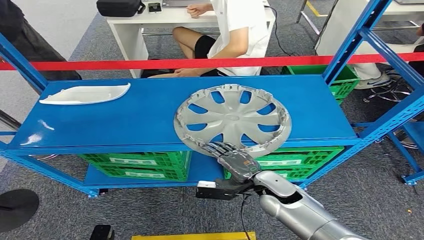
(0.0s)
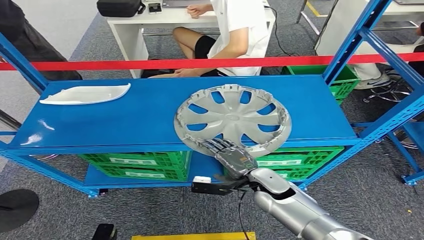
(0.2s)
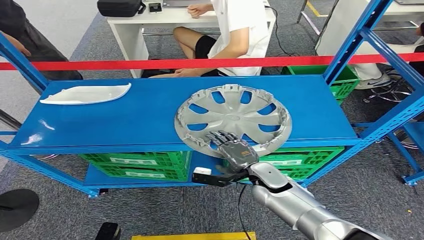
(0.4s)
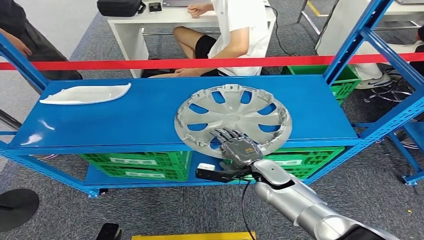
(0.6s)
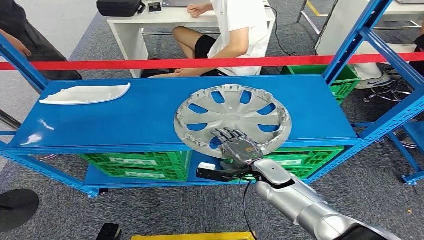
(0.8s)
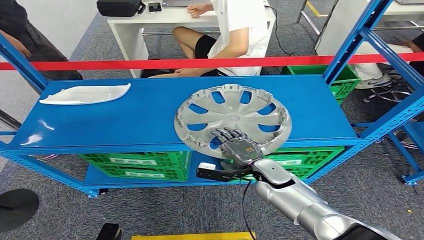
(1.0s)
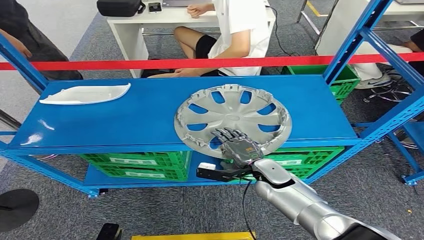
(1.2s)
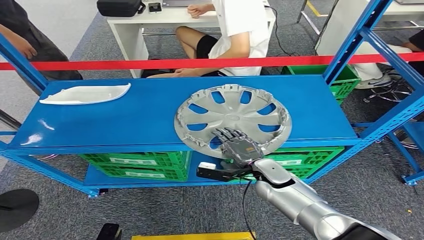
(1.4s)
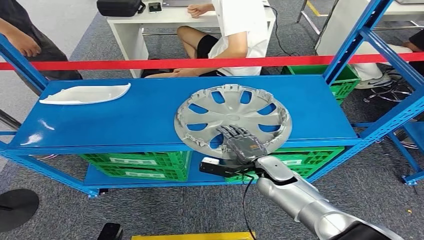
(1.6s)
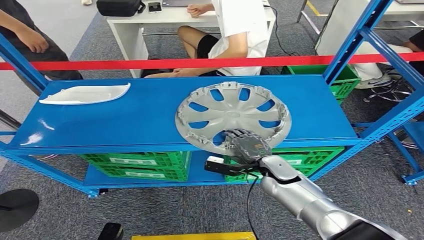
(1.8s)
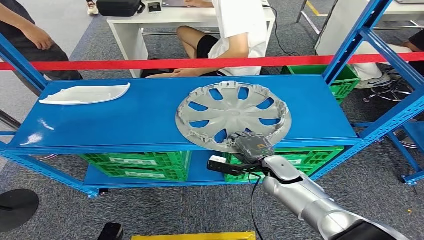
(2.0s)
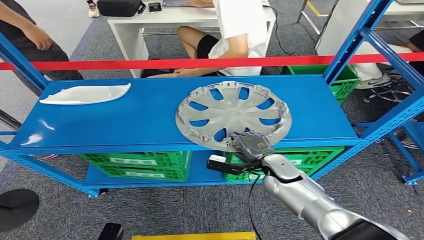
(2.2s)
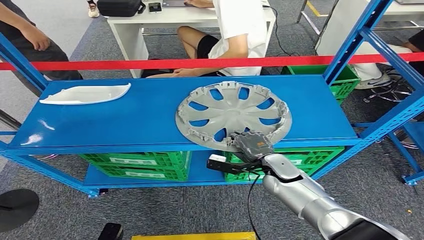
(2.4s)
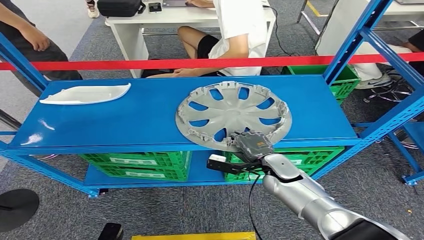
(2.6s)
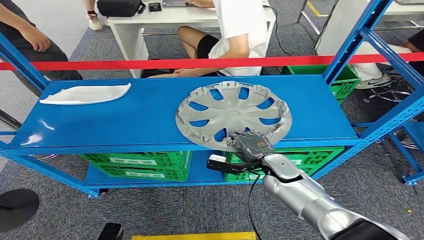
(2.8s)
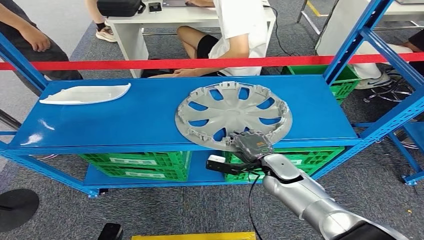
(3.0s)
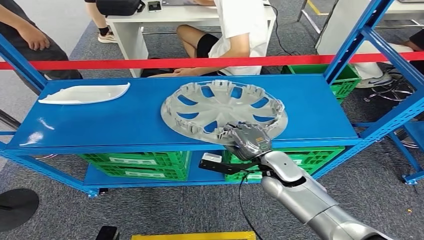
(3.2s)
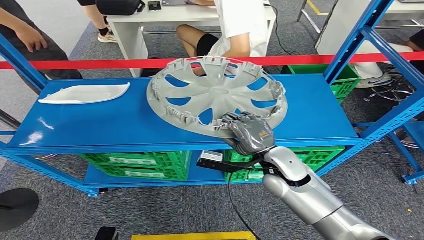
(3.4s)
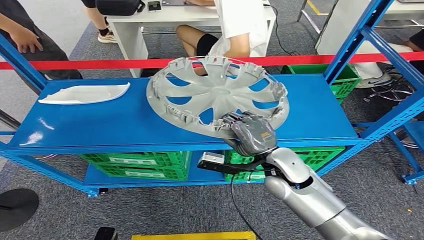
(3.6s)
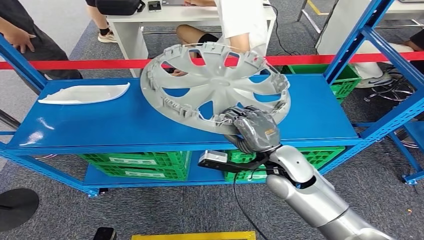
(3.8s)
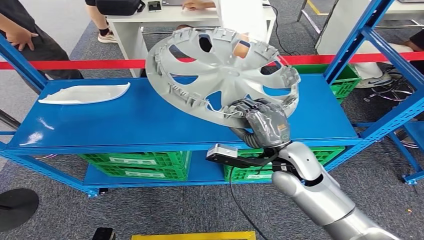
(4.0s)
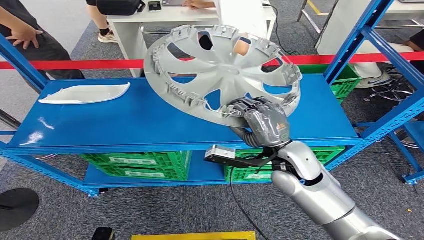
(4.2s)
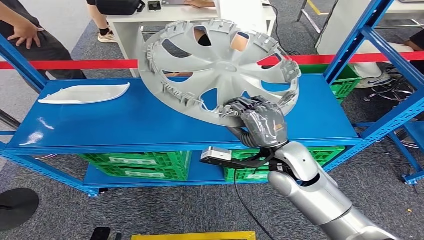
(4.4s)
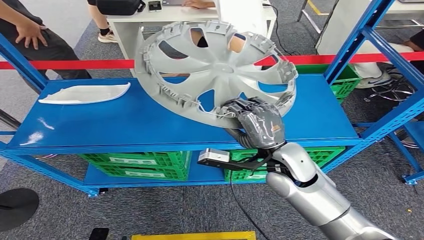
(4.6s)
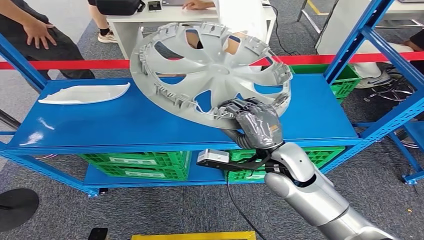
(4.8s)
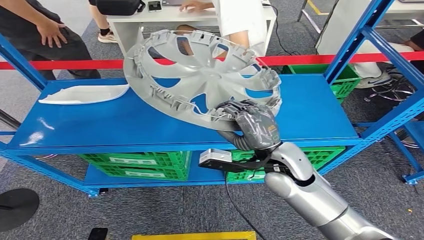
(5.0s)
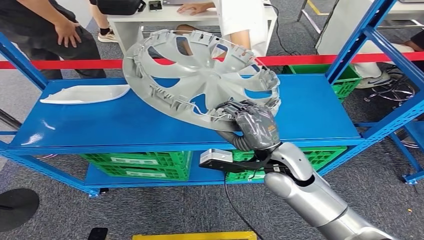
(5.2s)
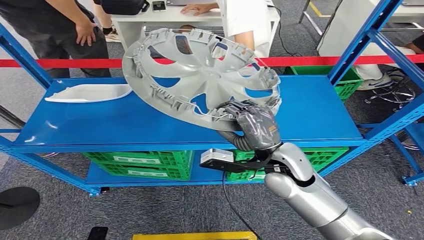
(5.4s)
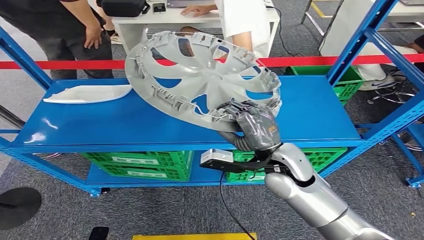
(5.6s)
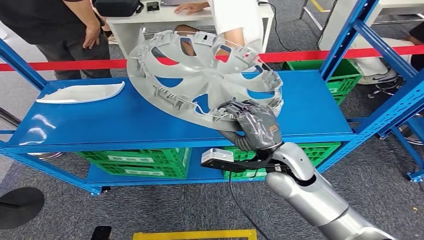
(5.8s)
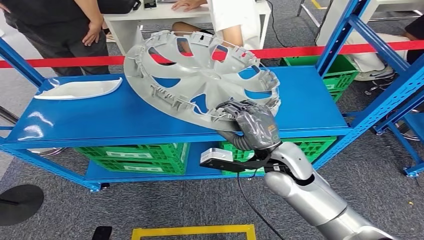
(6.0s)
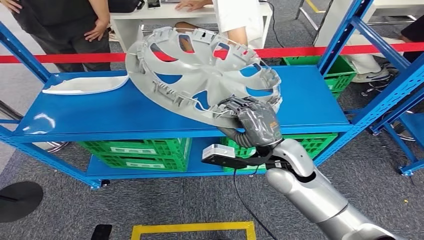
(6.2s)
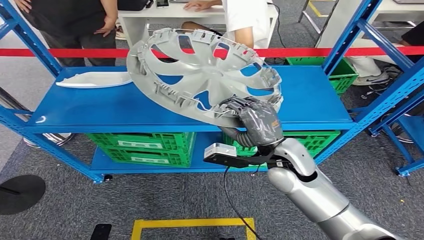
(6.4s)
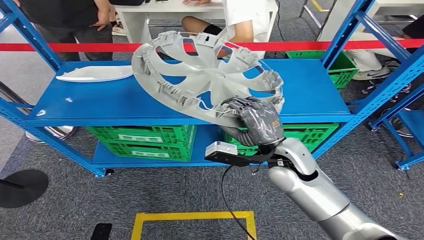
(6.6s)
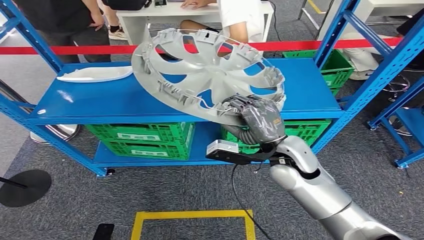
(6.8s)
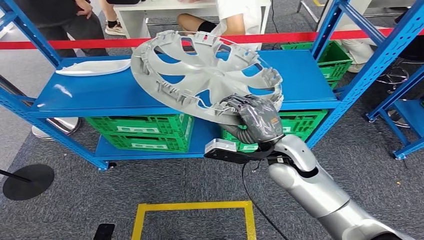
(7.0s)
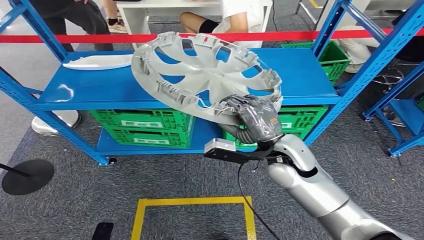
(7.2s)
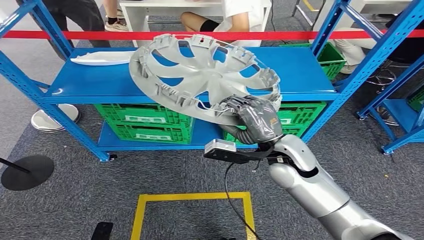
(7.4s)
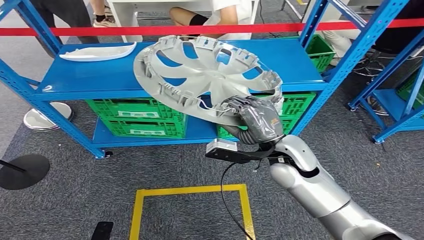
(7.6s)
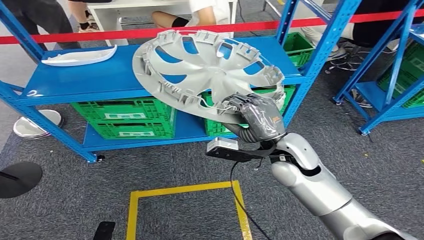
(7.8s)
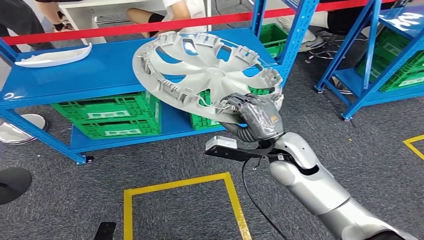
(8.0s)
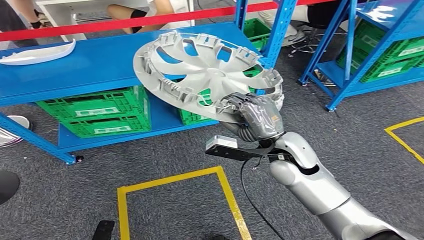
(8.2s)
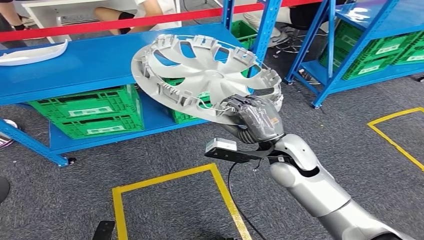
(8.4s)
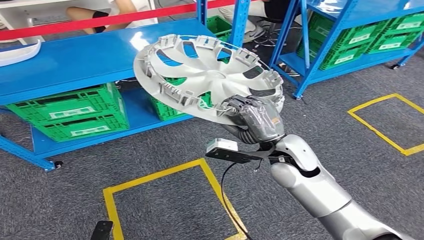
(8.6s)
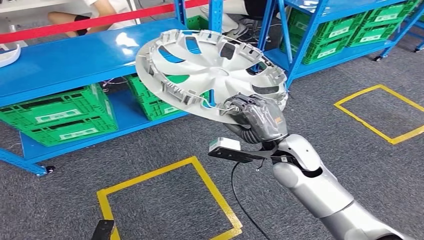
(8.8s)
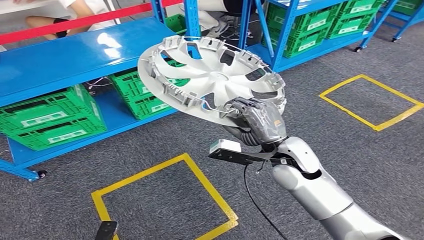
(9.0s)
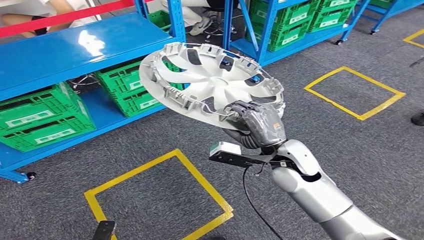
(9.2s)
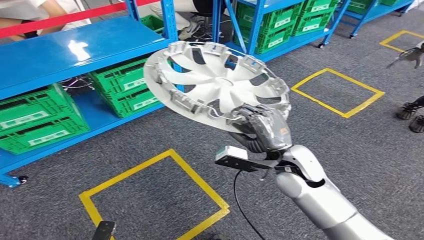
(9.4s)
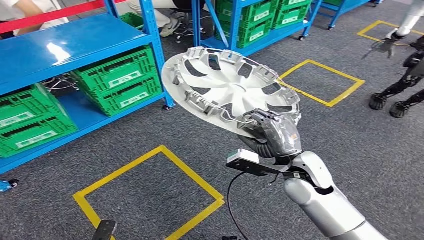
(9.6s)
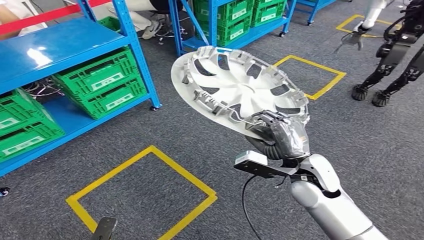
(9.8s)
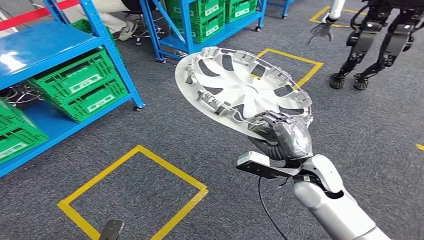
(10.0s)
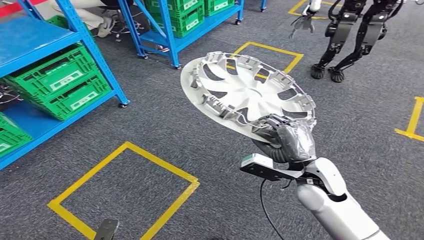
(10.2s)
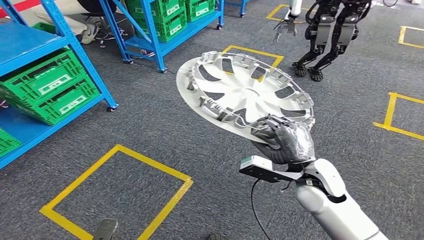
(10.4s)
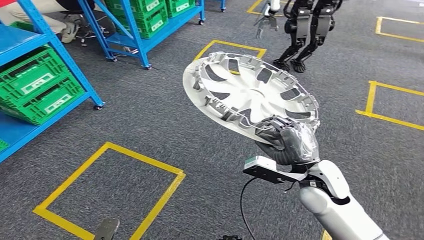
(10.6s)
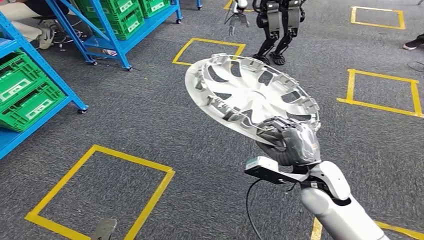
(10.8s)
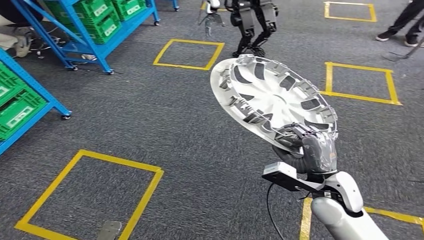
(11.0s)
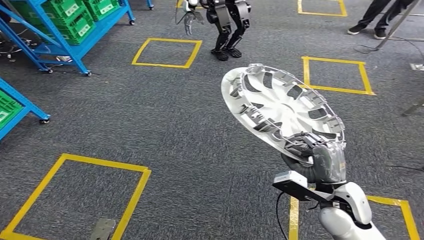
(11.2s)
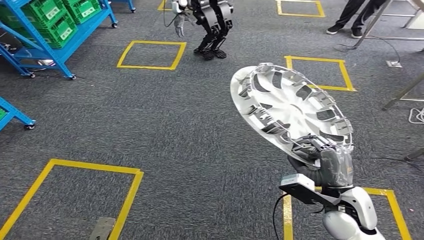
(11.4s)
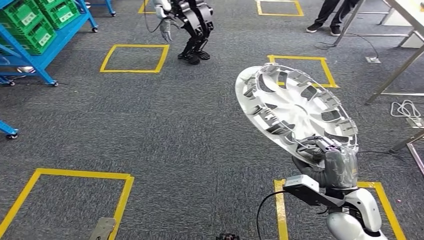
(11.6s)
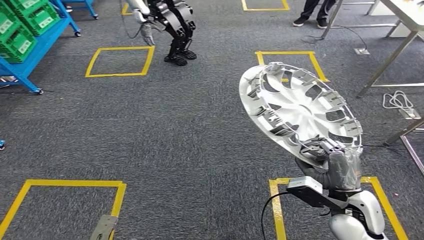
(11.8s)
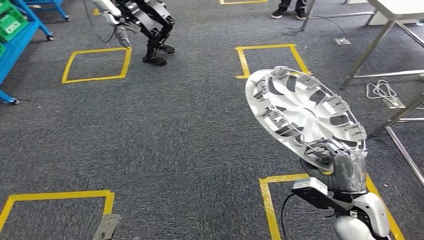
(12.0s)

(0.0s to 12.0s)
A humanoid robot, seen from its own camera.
Step, 0.0s - 7.4s: Take small components from the rack.
0.0s - 3.0s: The hands move only a little.

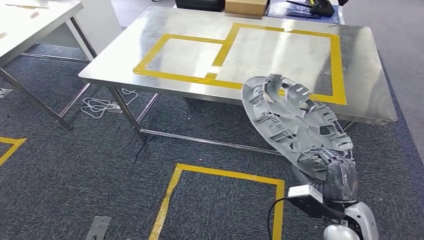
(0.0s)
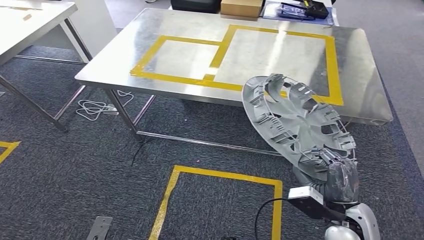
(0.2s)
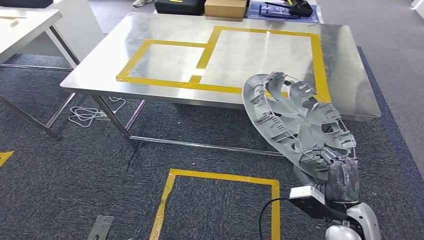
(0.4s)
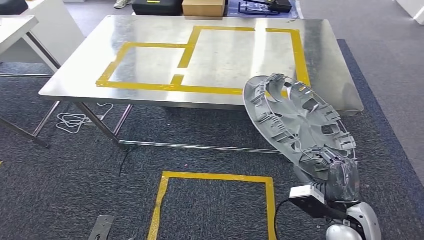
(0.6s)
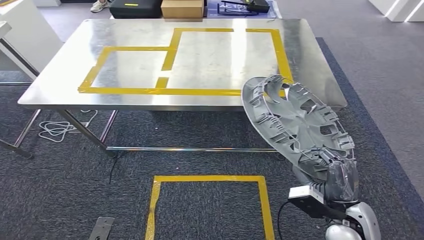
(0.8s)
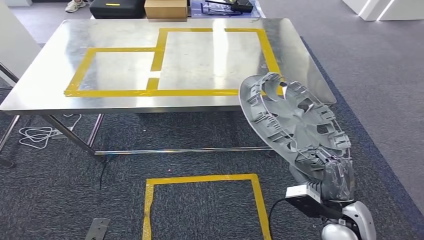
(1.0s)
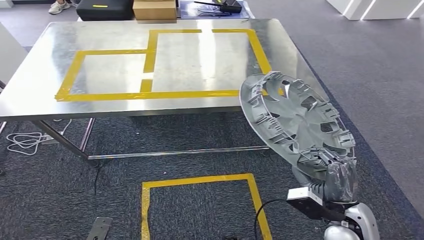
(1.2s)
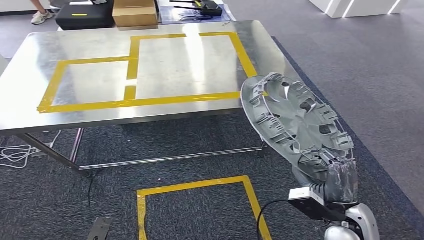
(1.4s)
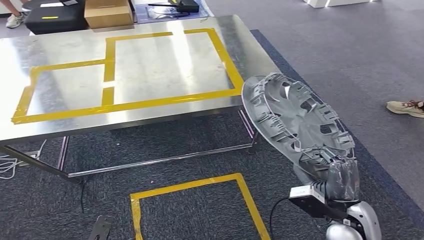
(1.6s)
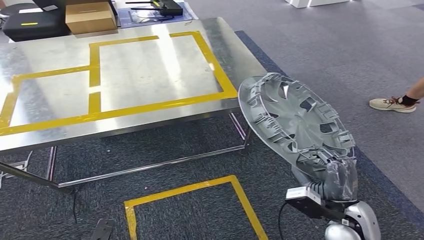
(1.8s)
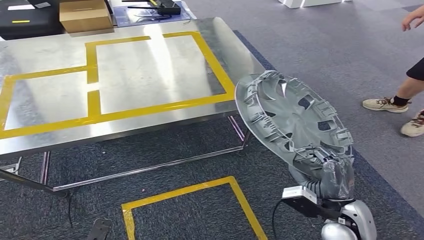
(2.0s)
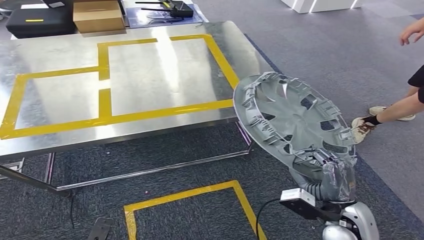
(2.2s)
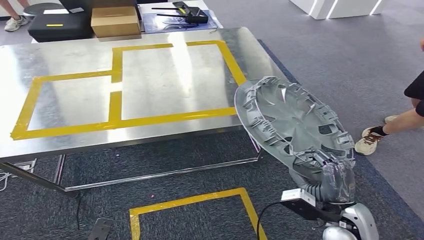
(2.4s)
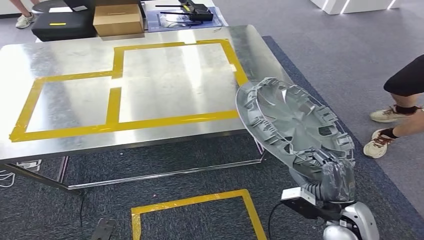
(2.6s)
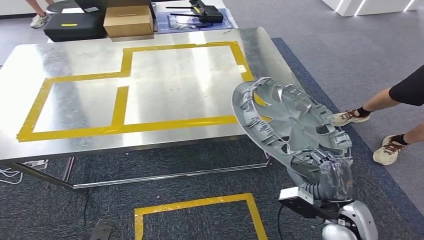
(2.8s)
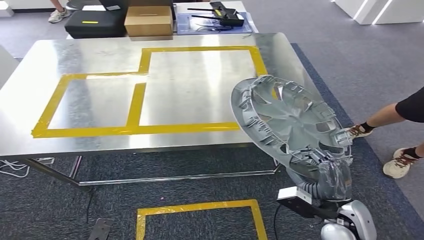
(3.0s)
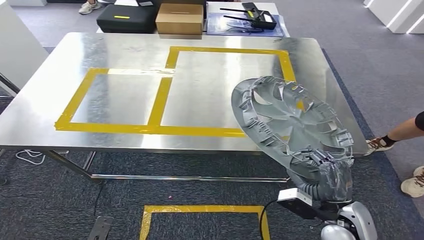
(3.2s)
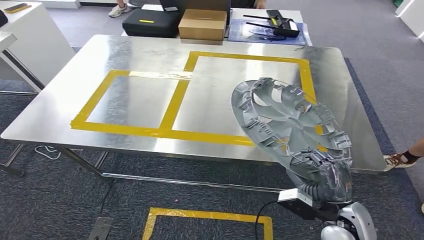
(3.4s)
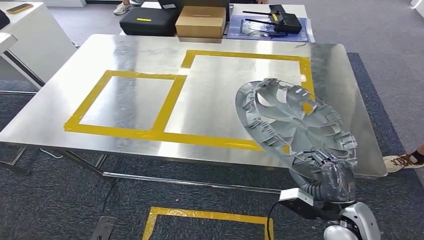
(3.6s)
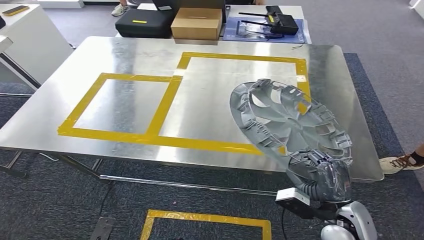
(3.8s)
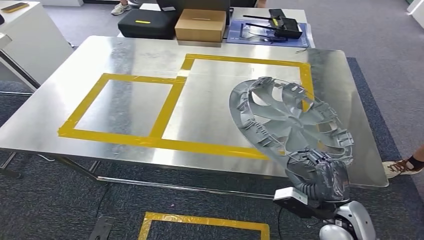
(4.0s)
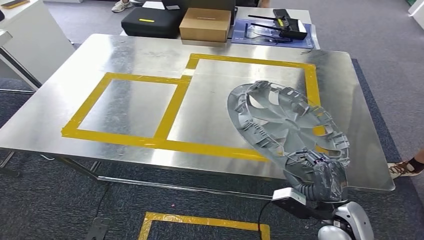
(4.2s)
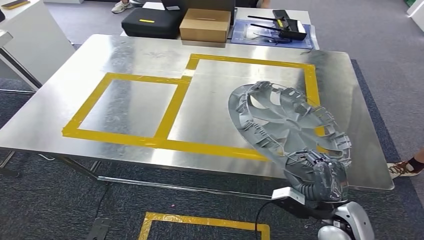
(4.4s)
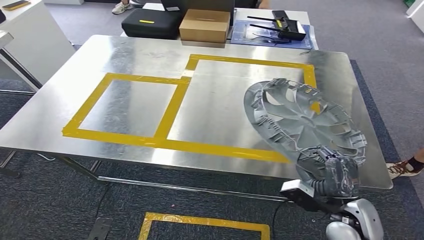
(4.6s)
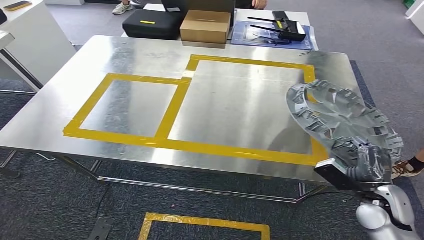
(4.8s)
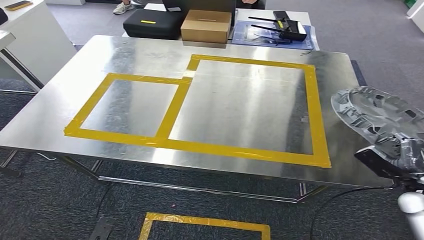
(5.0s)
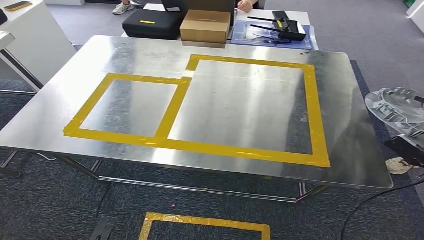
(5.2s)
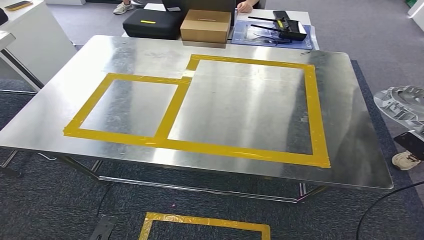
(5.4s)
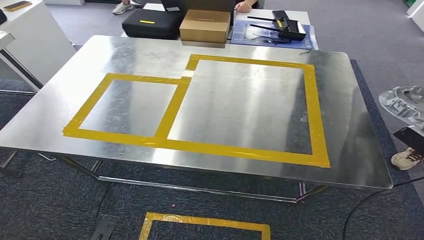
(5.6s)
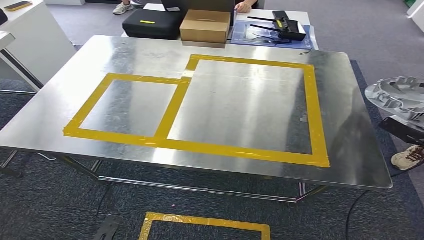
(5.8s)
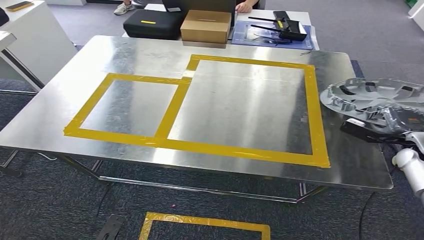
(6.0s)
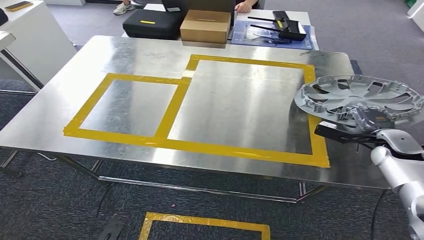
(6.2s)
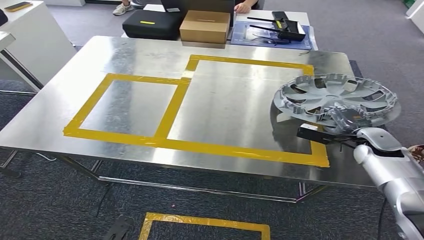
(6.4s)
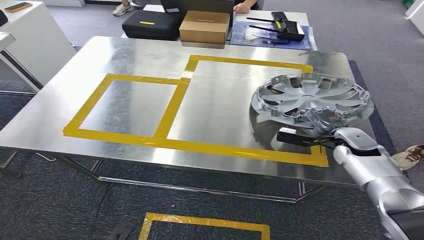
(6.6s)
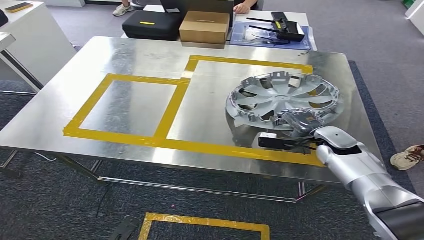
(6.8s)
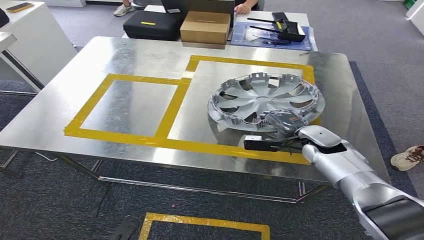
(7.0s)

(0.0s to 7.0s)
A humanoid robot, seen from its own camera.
Step, 0.0s - 3.8s: Move the small parts to the workbench.
4.2s - 5.6s: The right hand moves to the right, roughly 30 cm.
5.6s - 7.0s: The right hand heads to the left and forward, covering approximately 30 cm.
